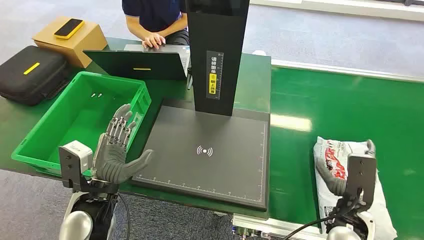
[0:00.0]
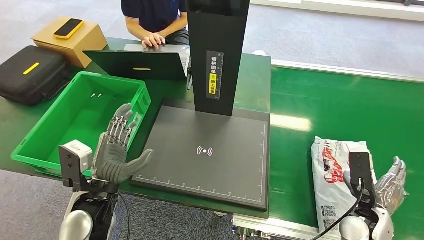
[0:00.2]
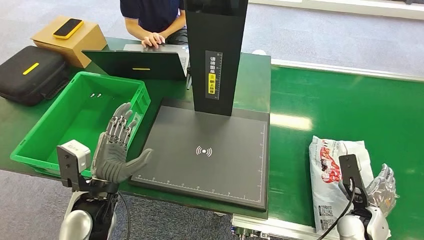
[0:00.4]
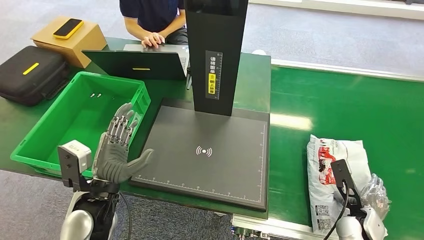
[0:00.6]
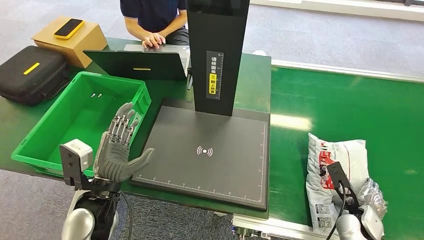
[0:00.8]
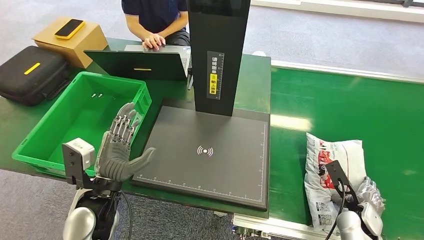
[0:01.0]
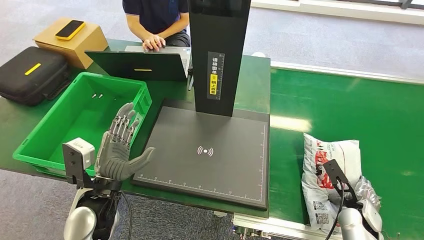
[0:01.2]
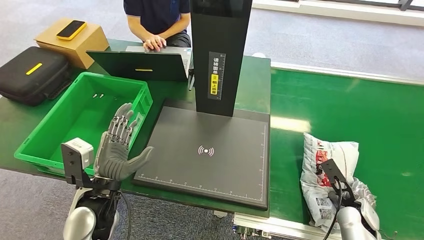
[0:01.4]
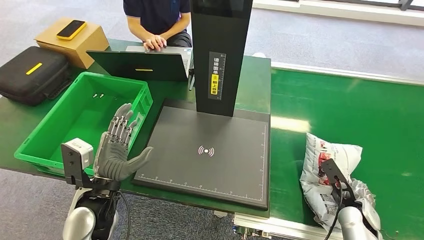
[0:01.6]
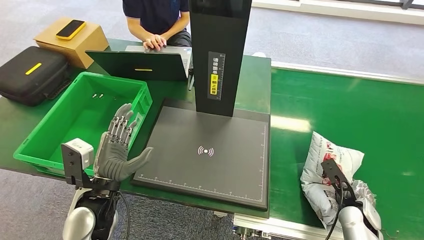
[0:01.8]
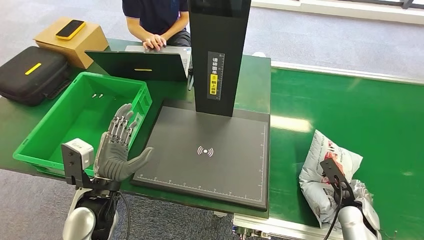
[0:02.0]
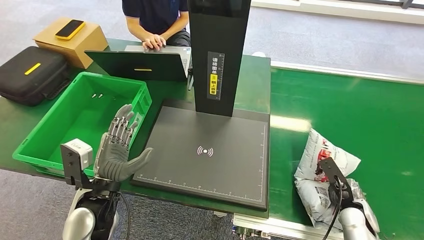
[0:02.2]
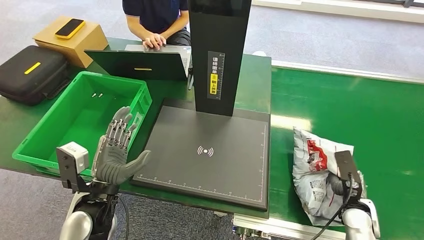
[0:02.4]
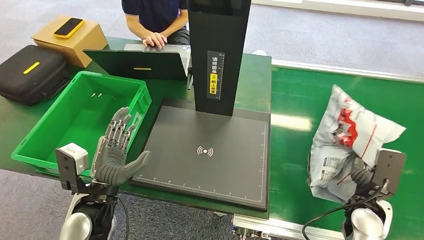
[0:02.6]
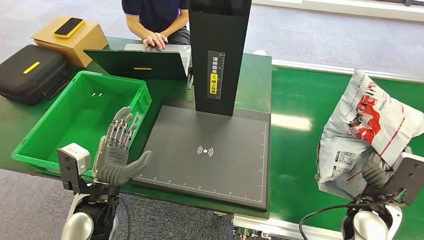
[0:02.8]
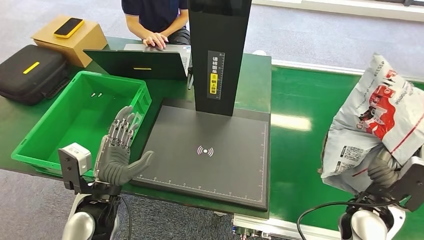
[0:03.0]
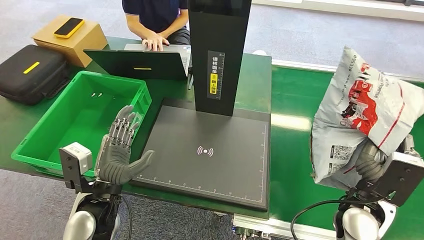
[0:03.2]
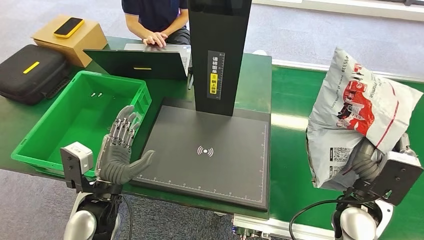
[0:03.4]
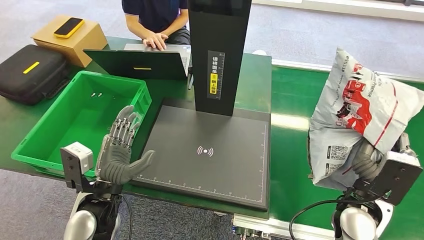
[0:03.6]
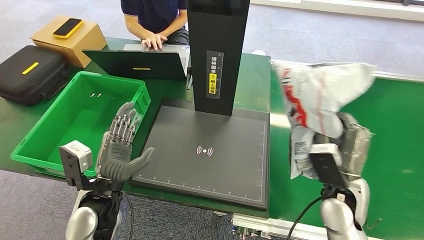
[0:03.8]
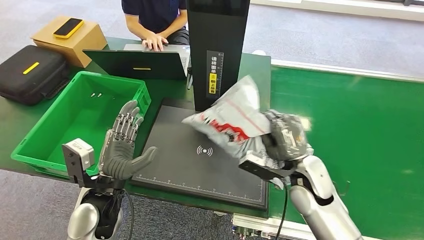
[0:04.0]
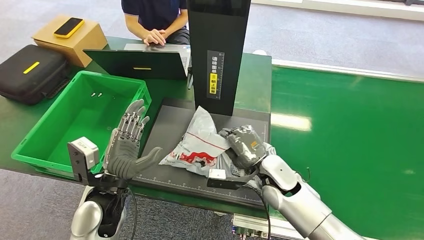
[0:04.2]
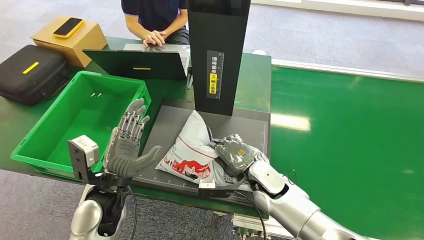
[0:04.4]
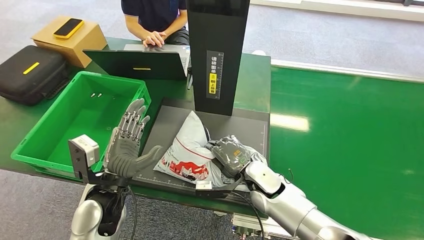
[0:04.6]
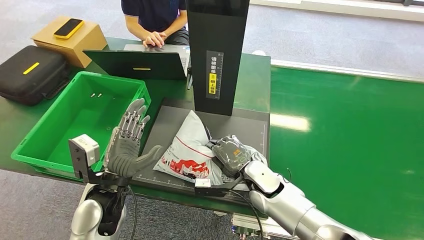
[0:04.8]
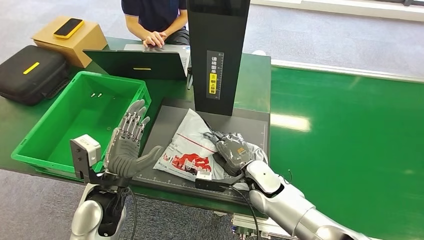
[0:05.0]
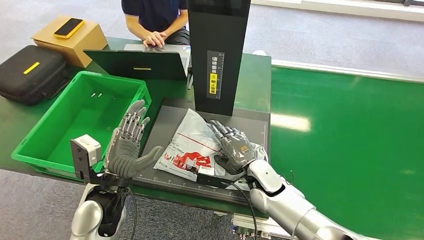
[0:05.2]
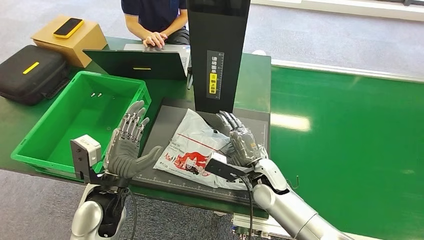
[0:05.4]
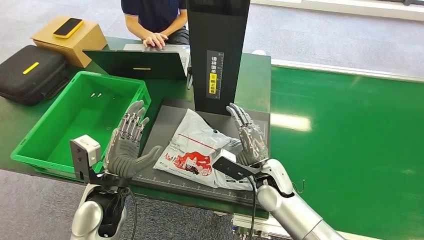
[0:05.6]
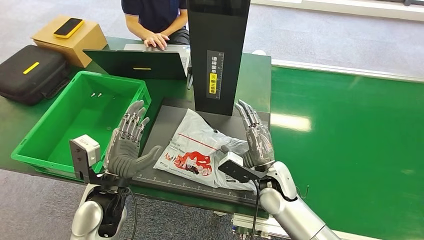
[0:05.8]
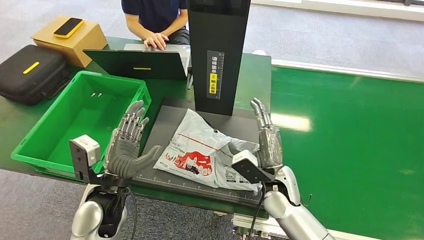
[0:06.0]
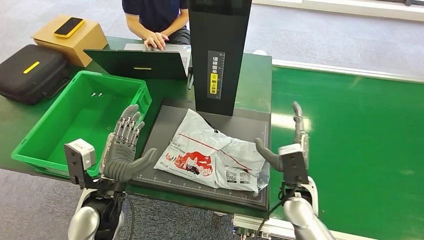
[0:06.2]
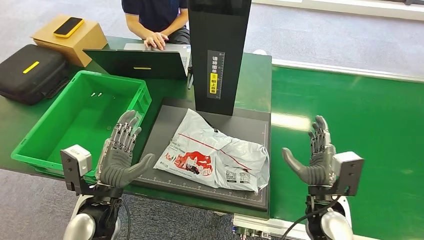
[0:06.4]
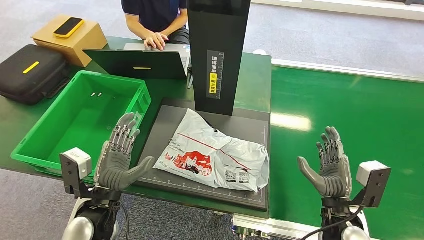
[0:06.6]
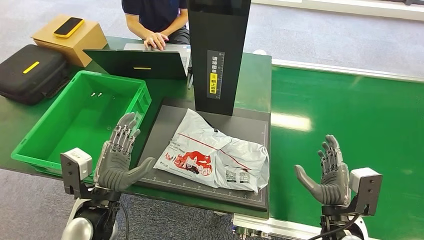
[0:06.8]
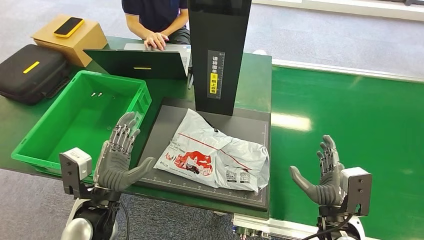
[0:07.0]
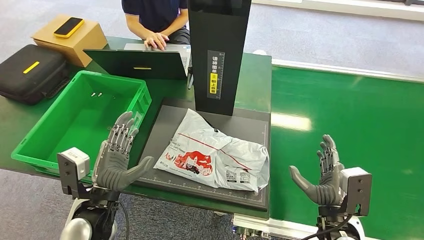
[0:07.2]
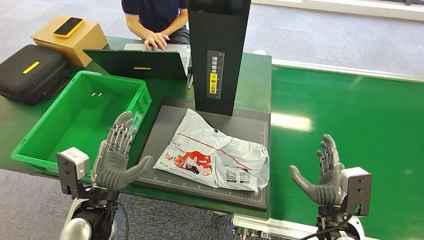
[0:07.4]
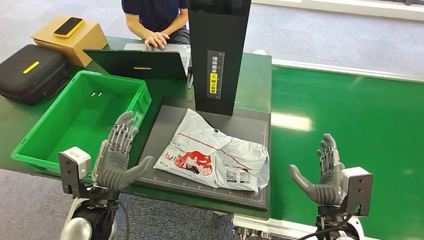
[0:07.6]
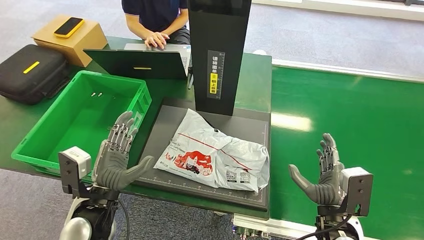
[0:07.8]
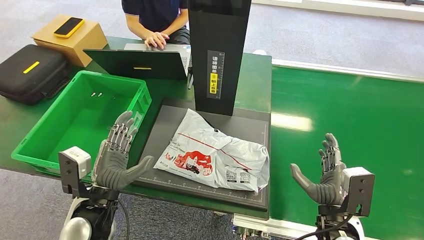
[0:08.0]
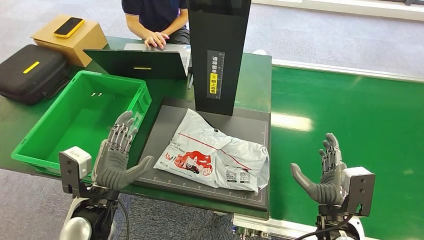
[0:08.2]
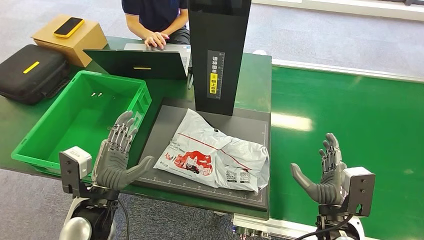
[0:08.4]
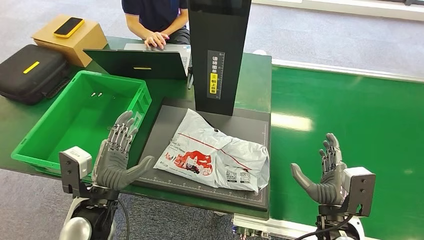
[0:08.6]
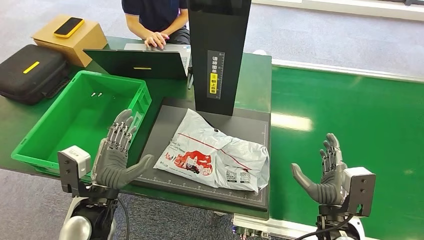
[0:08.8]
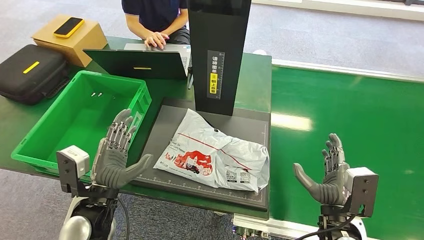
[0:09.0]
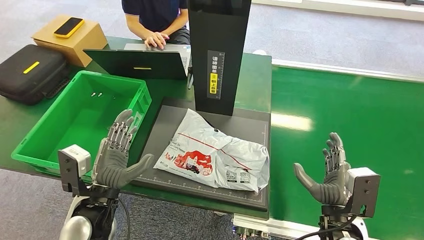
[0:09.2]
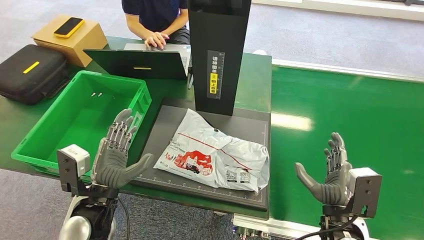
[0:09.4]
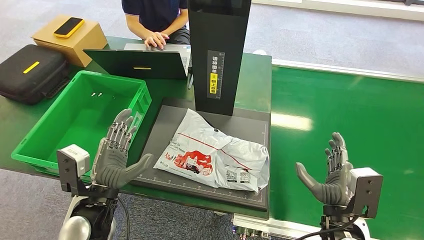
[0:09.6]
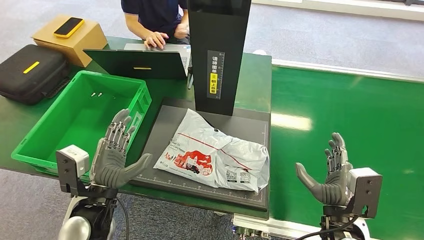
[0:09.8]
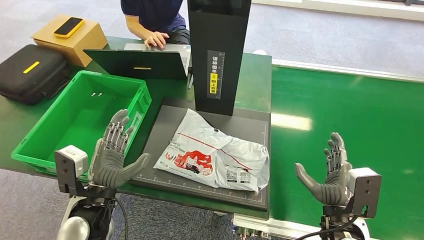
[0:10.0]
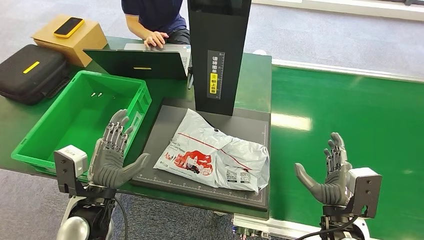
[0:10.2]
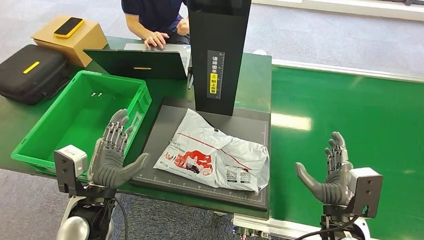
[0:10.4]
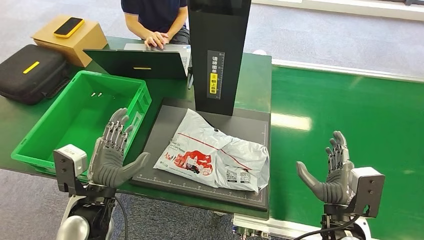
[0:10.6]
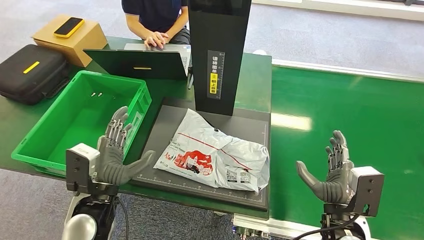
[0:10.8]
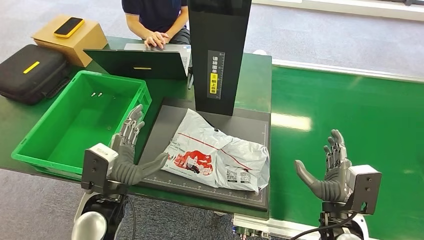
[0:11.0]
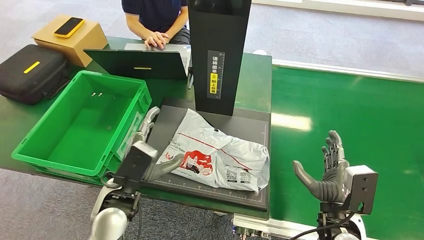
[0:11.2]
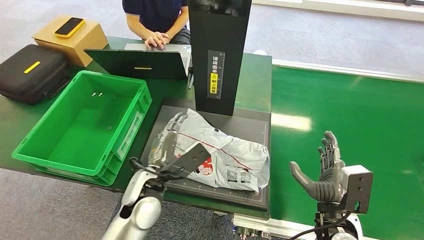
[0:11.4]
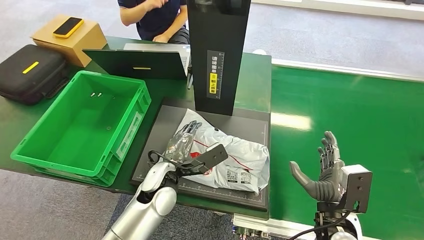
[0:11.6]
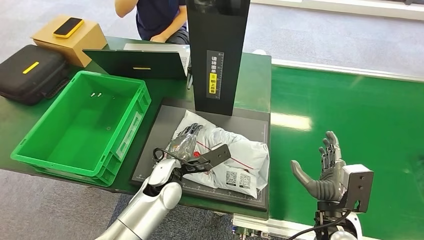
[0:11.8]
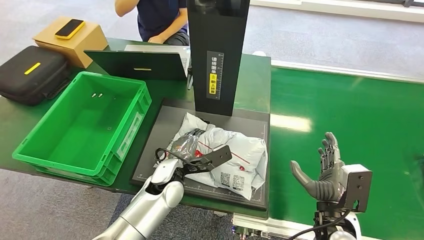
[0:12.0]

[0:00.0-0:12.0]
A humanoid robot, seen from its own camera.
Step, 0:00.0 to 0:02.8: Pick up the package from the conveyor belt.
Step, 0:03.0 to 0:06.0: Place the package onto the inbound machine.
0:06.0 to 0:07.6: The right hand heads backward and to the right, covering approximately 15 cm.
0:07.6 to 0:10.4: Both hands stay put.

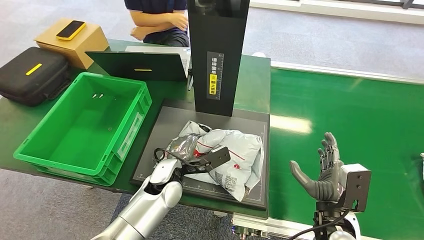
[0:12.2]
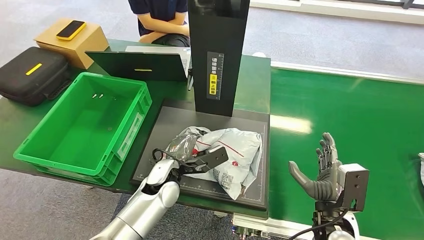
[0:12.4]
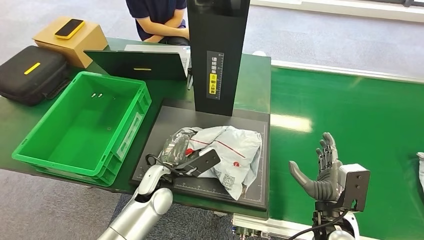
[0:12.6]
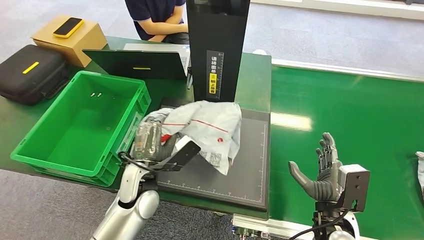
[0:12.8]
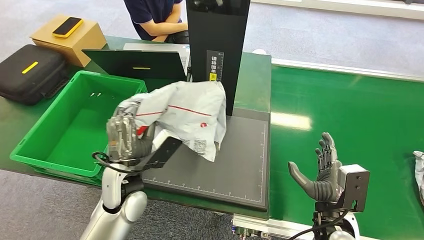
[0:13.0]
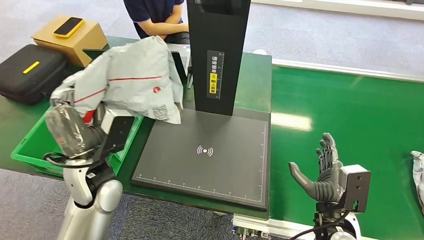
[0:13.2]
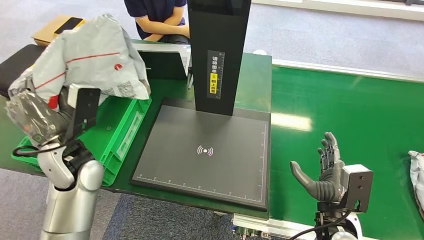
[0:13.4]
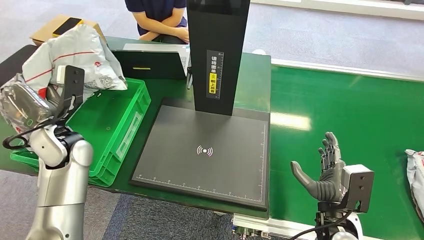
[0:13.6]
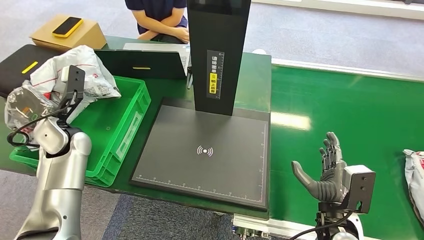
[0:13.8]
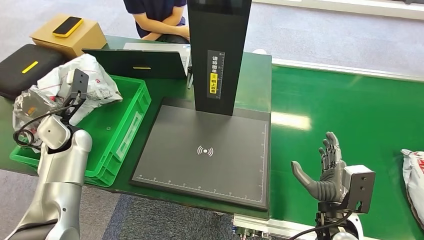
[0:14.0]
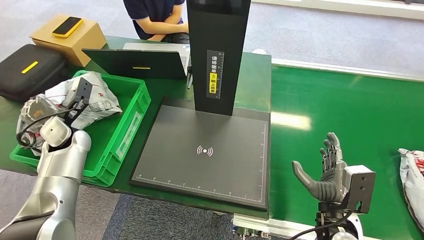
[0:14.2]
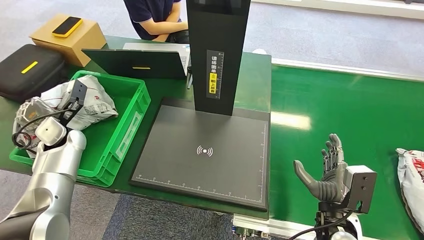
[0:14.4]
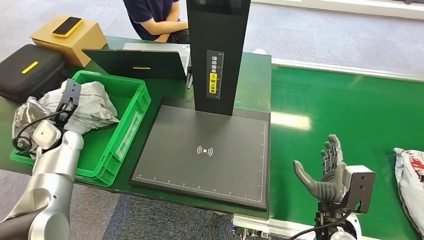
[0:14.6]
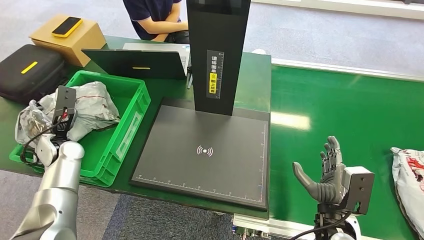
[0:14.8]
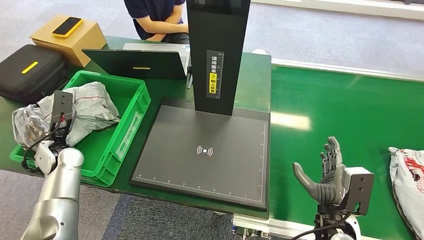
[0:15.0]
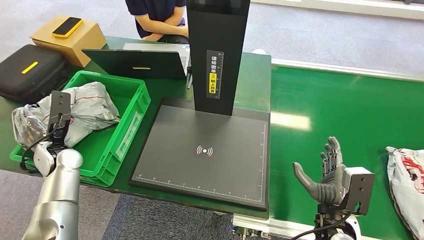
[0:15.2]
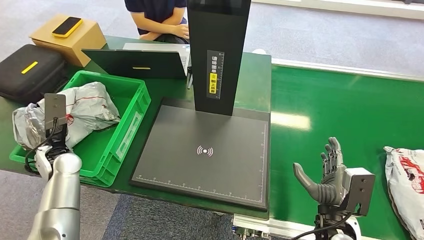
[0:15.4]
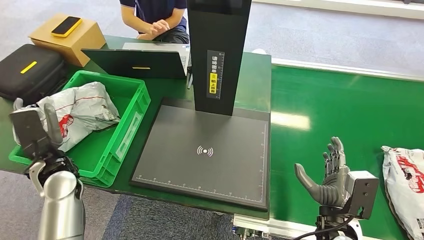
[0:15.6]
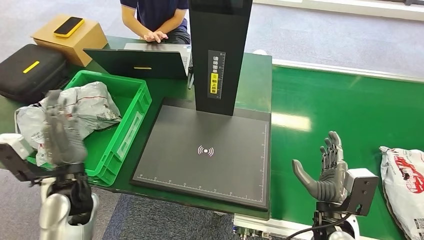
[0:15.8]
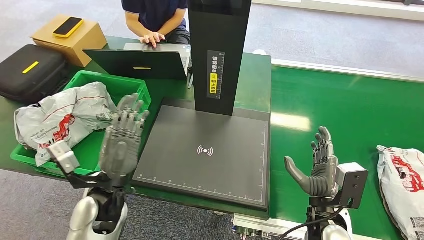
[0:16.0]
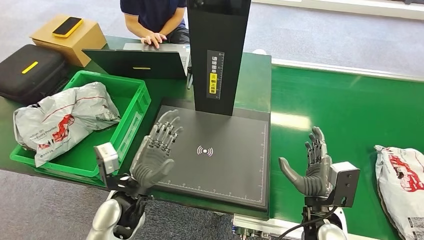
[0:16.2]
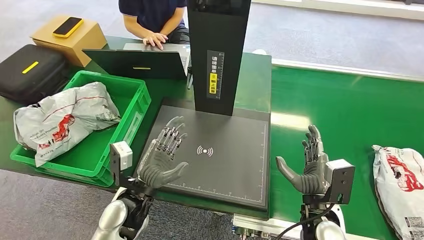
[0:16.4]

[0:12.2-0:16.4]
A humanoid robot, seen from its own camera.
Step, 0:13.2 to 0:16.2: Place the package into the parcel locker.
0:13.6 to 0:15.0: The left hand goes about 10 cm downward and to the left.

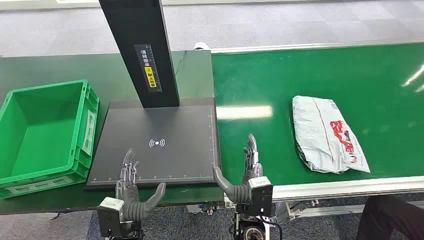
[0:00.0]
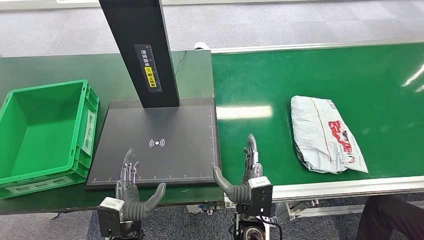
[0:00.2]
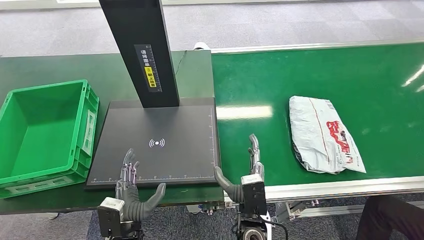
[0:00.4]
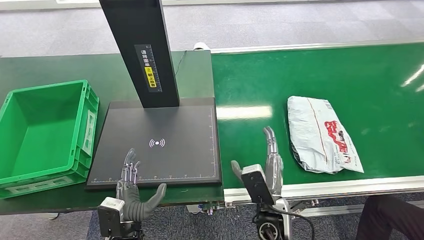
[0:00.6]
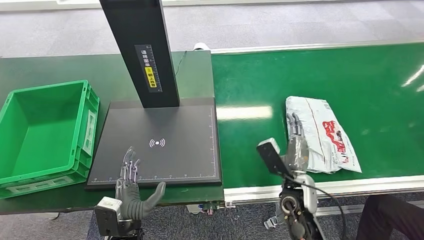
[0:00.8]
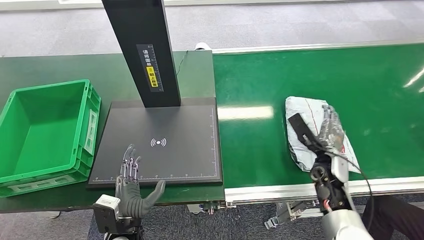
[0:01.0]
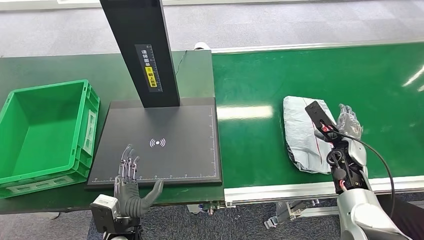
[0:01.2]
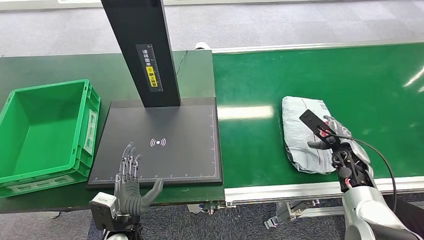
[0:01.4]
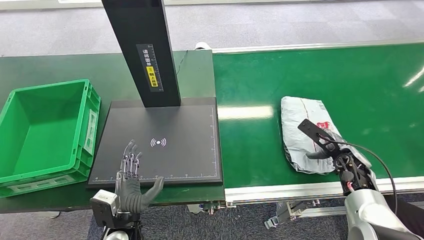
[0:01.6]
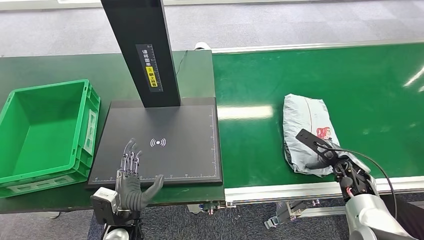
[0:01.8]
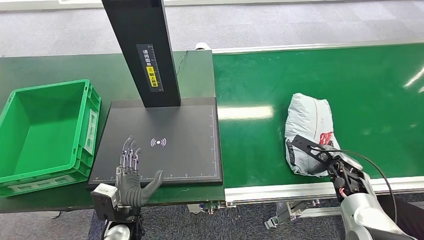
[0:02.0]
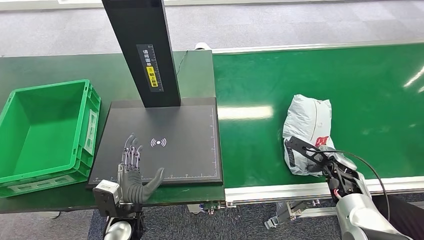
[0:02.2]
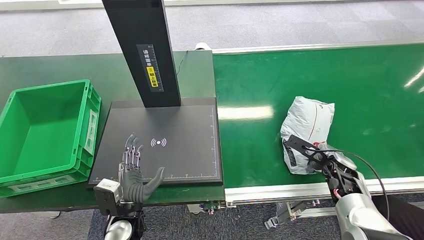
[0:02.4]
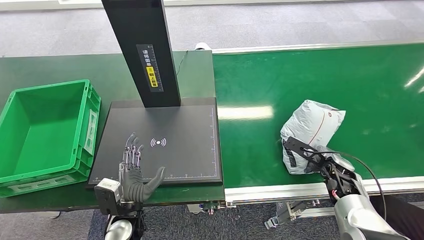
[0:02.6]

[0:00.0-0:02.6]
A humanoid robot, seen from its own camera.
0:01.2 to 0:02.6: The right hand moves some 5 cm.
